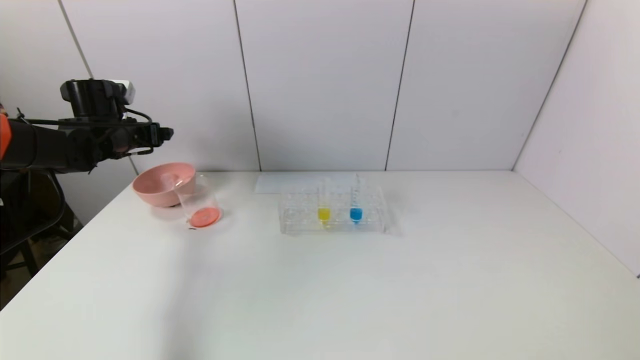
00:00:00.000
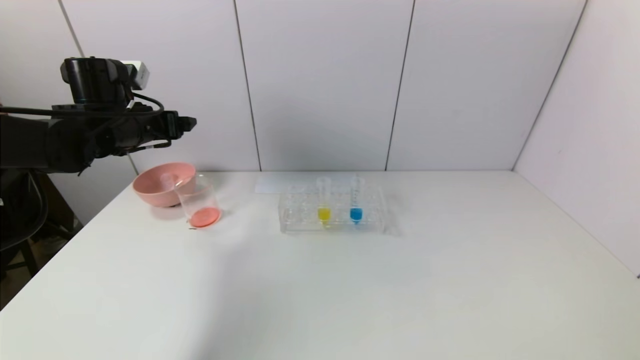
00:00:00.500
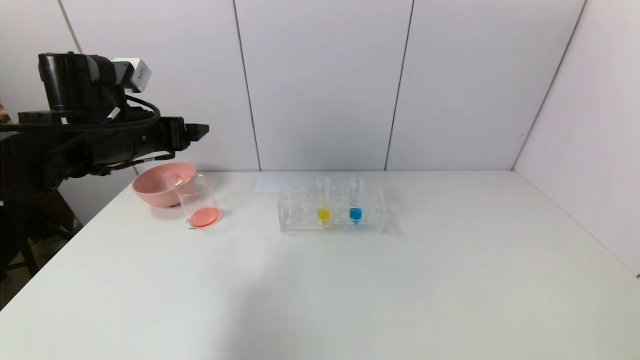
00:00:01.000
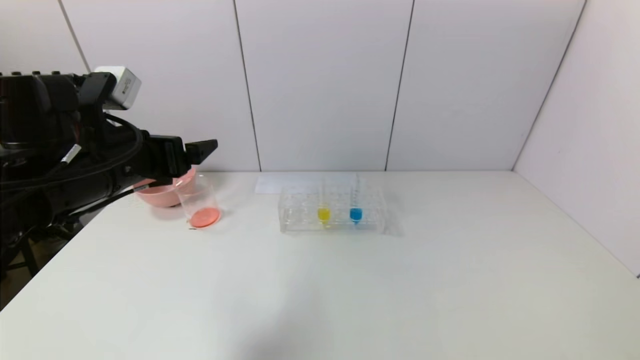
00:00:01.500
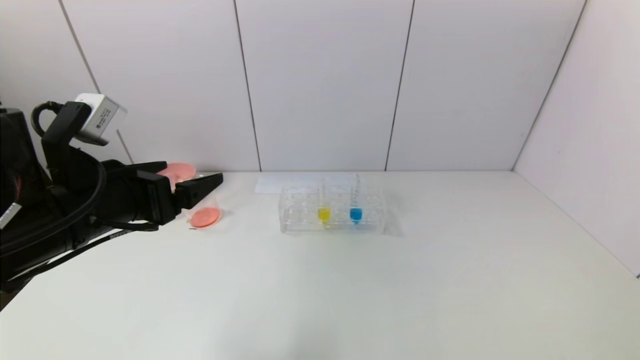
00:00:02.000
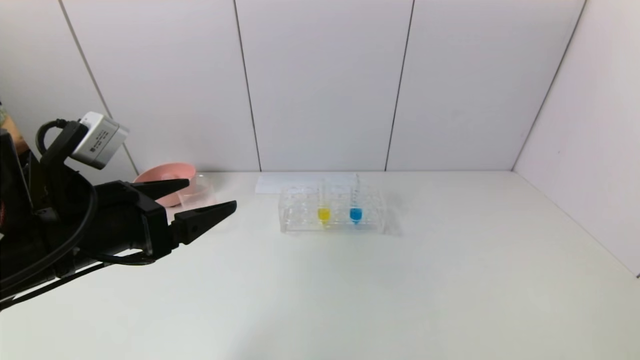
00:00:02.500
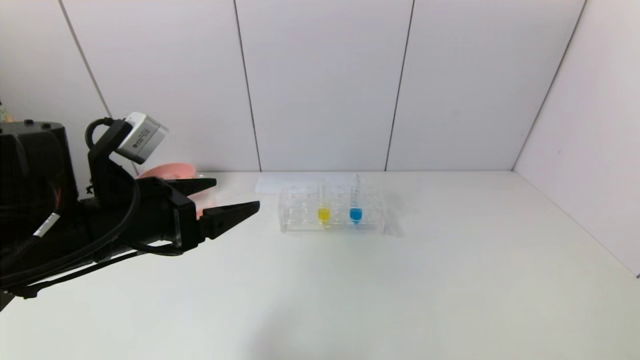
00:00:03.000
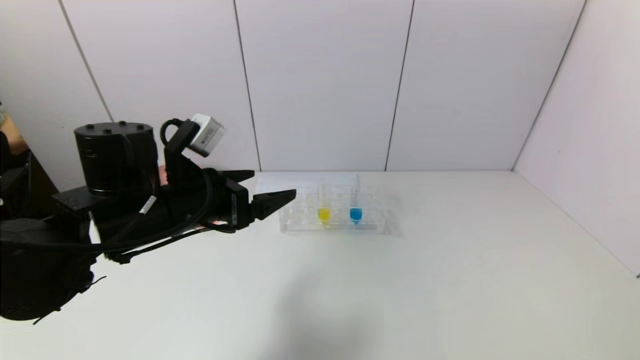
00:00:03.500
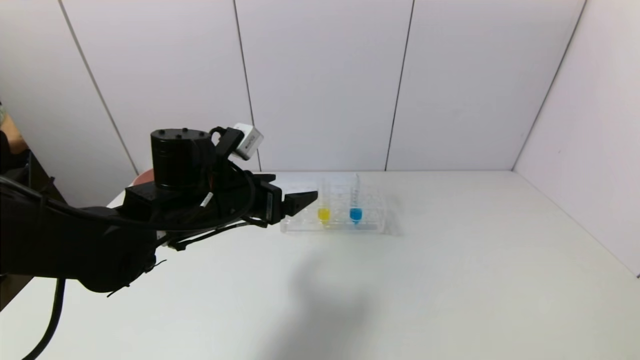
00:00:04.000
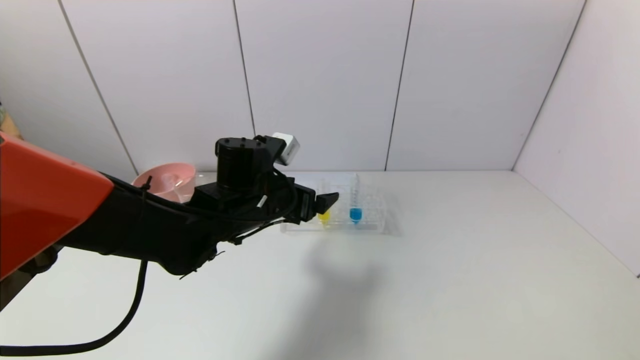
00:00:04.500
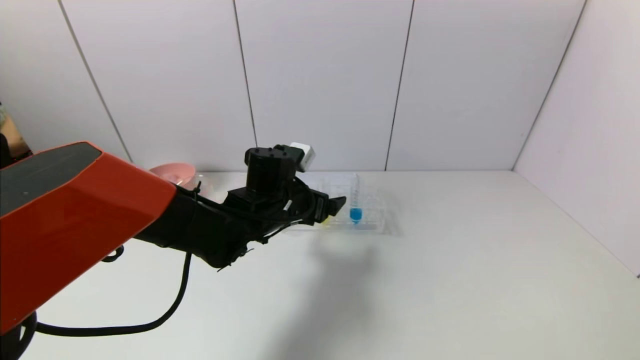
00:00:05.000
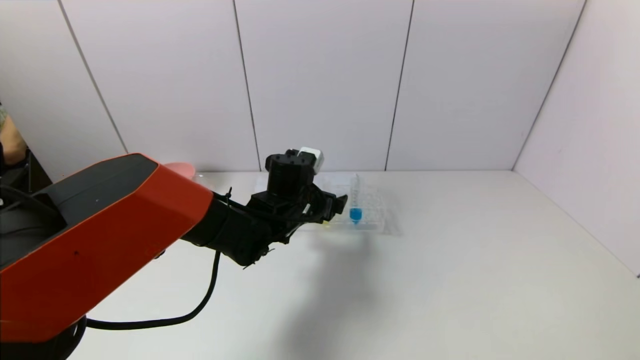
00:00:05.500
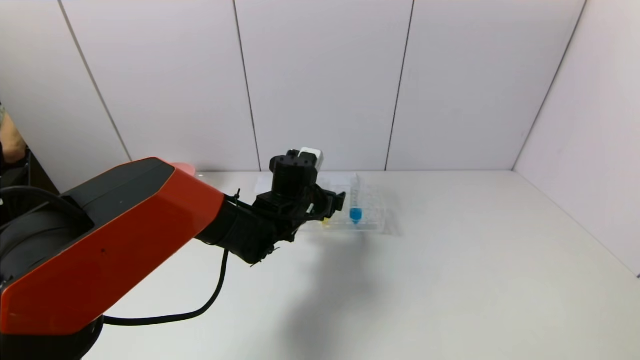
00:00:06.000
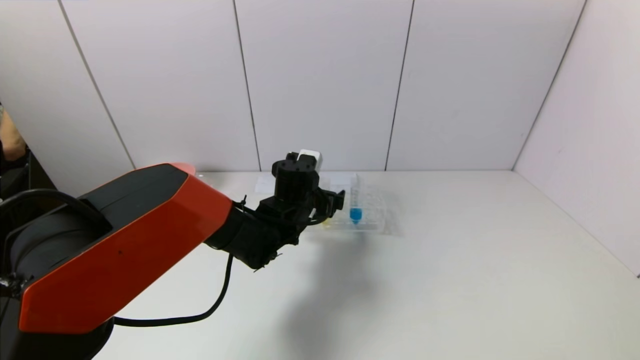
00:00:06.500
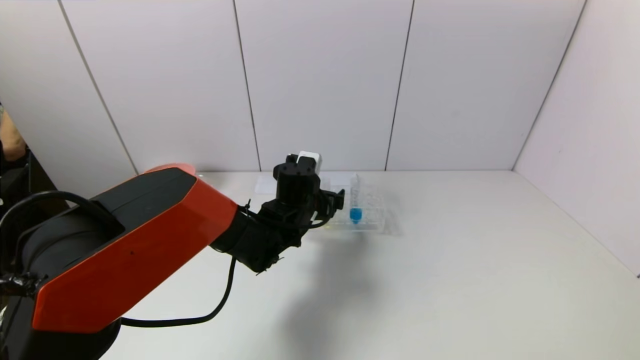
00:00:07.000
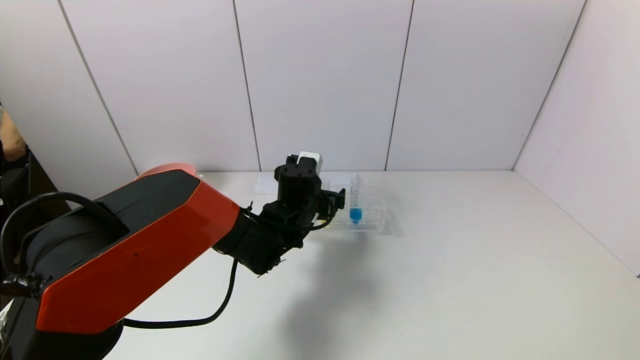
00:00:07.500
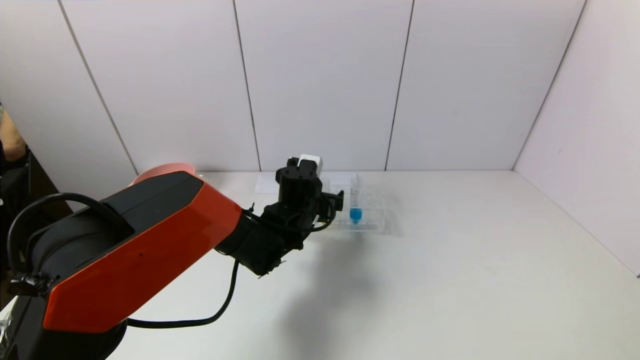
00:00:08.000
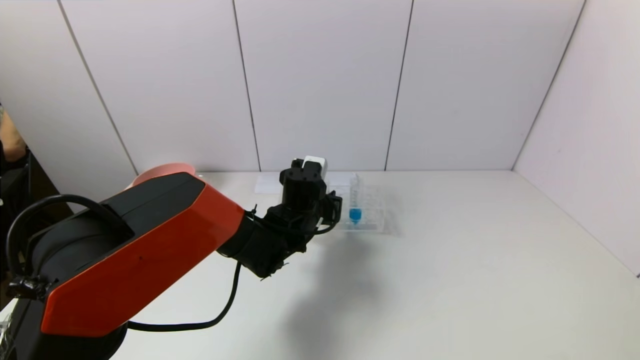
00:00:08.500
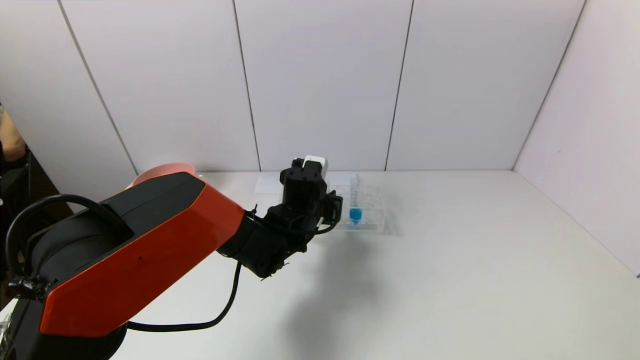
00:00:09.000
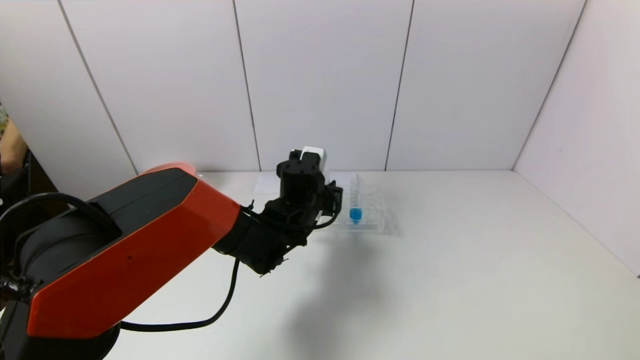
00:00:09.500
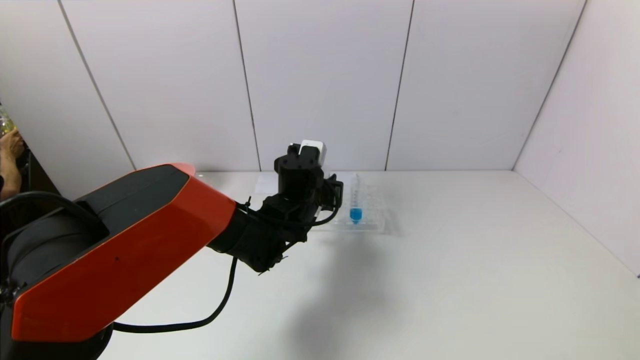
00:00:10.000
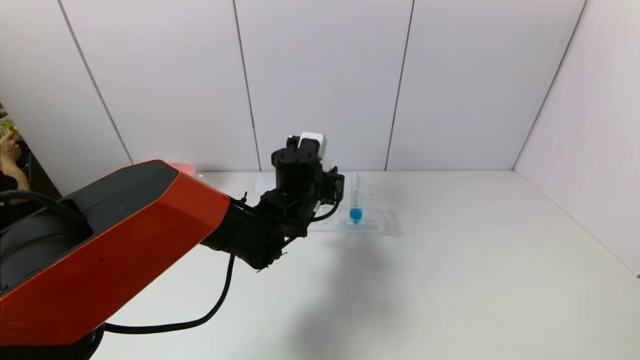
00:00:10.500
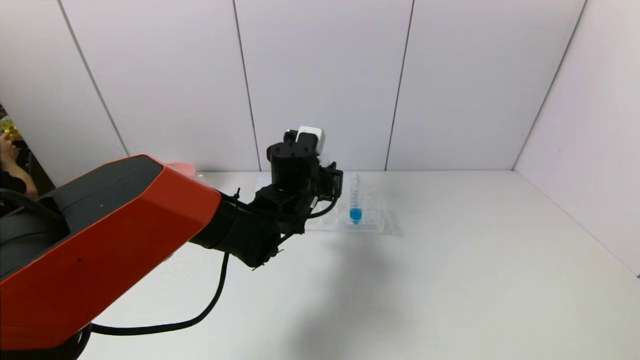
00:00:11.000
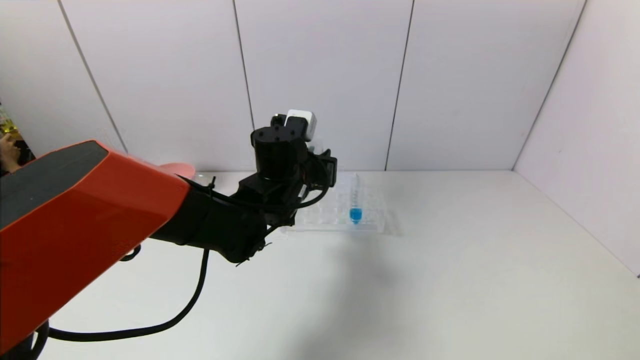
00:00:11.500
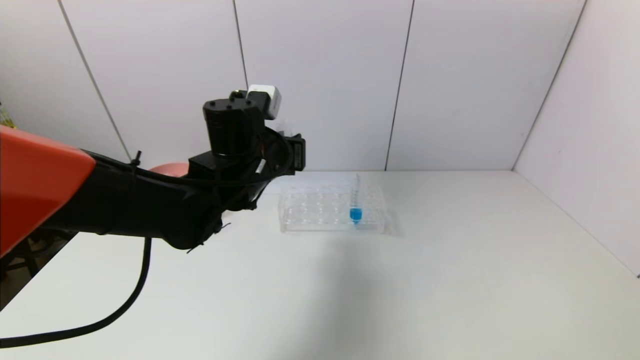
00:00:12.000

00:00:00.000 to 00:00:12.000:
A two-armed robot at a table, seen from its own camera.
Task of the whole recording: pick up the test tube with yellow pigment and the test tube with red pigment by grippers and pour them into the beaker.
Step, 00:00:00.000 to 00:00:09.000: Grasp the yellow reagent with the left gripper.
00:00:00.000 to 00:00:02.000: The left gripper moves backward and to the right, roughly 25 cm.
00:00:02.000 to 00:00:04.000: The left gripper goes approximately 15 cm forward, to the right and downward.
00:00:04.000 to 00:00:06.000: The left gripper moves to the right, forward and downward, some 15 cm.
00:00:06.000 to 00:00:08.000: The grippers stay close to where they were, moving slightly.
00:00:08.000 to 00:00:10.000: The left gripper closes its fingers.
00:00:10.000 to 00:00:12.000: The left gripper moves upward and to the left, roughly 10 cm.

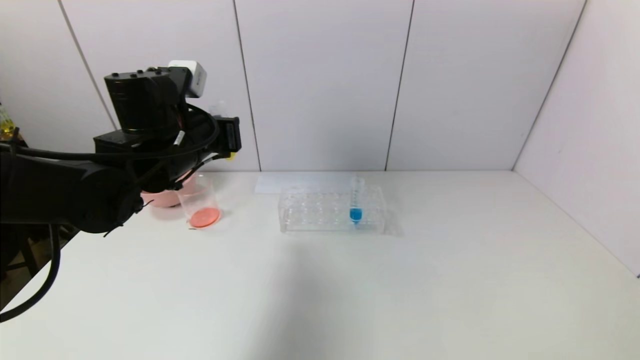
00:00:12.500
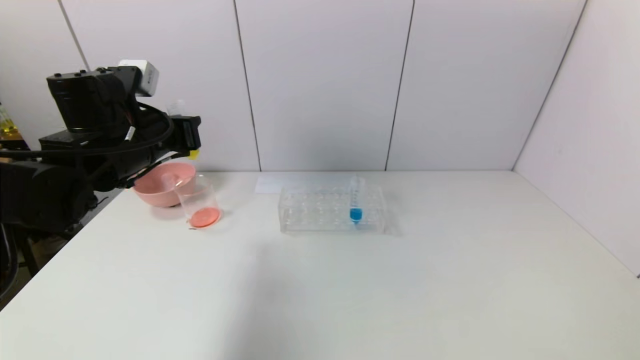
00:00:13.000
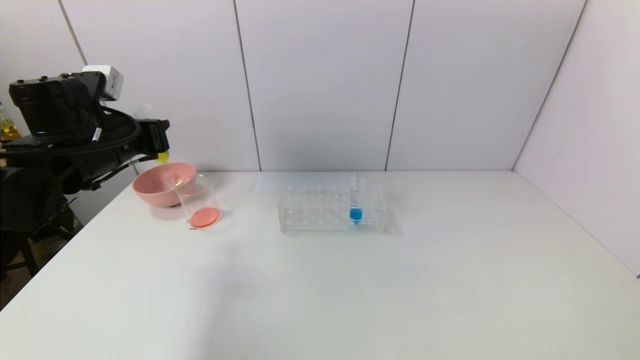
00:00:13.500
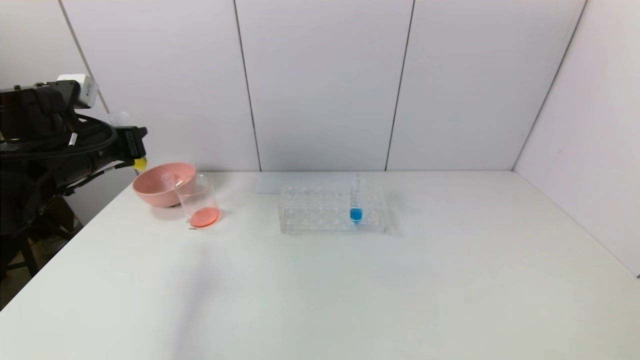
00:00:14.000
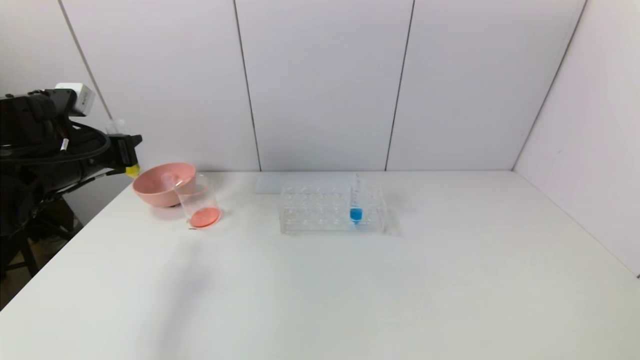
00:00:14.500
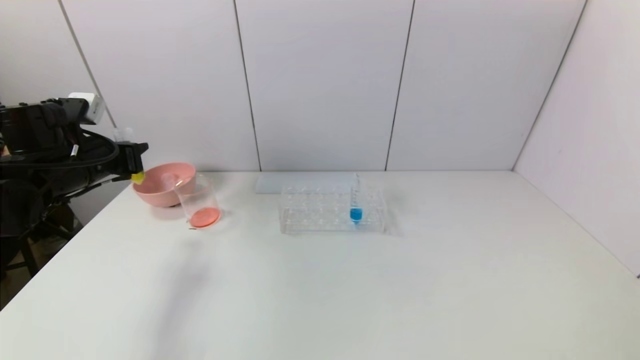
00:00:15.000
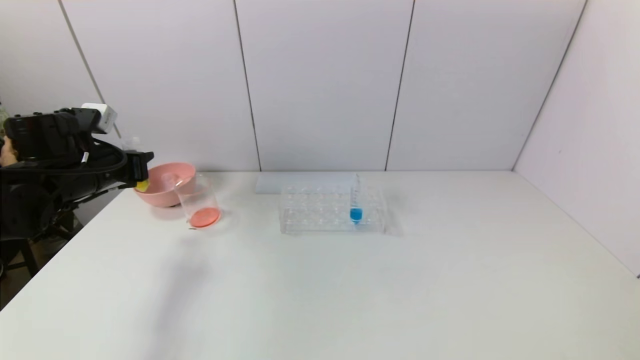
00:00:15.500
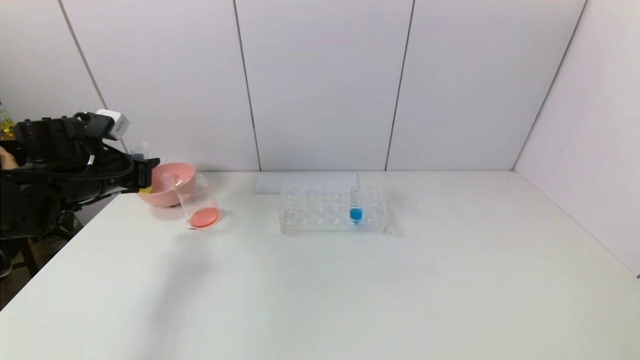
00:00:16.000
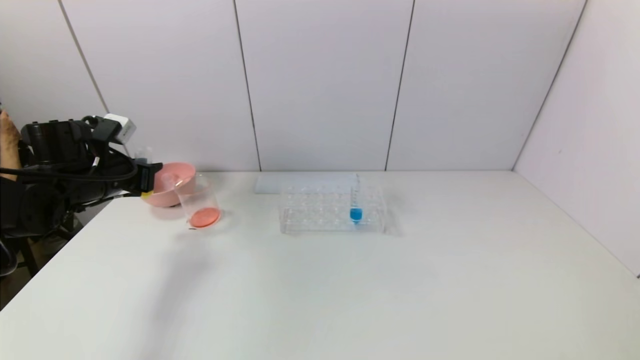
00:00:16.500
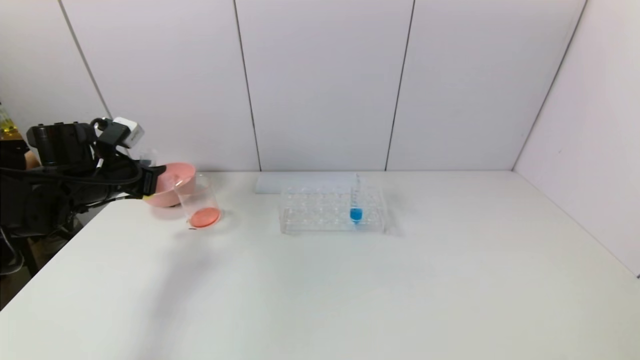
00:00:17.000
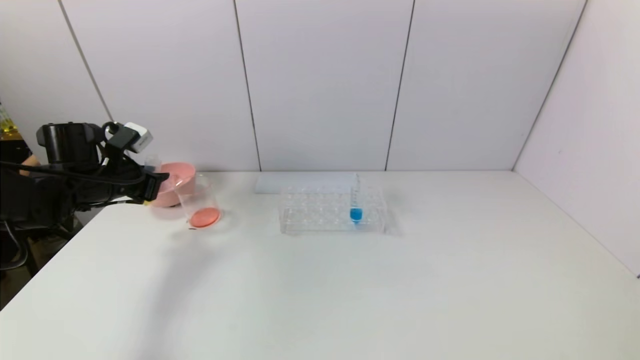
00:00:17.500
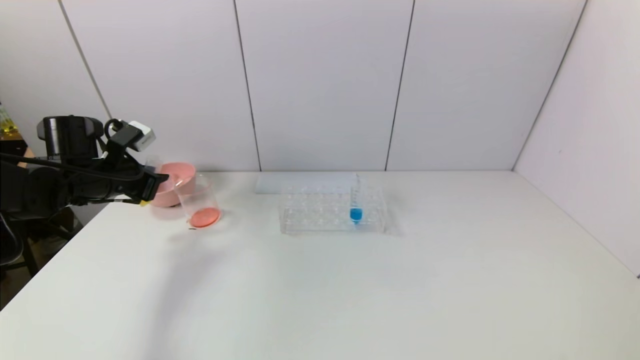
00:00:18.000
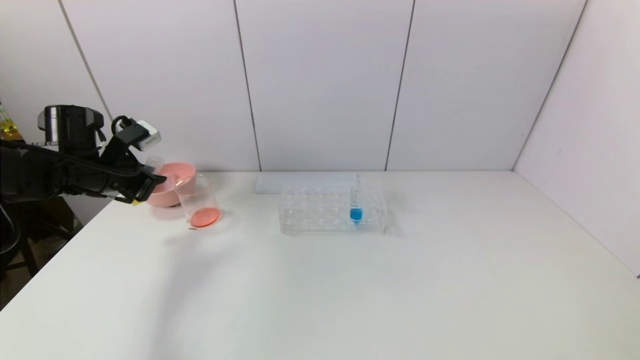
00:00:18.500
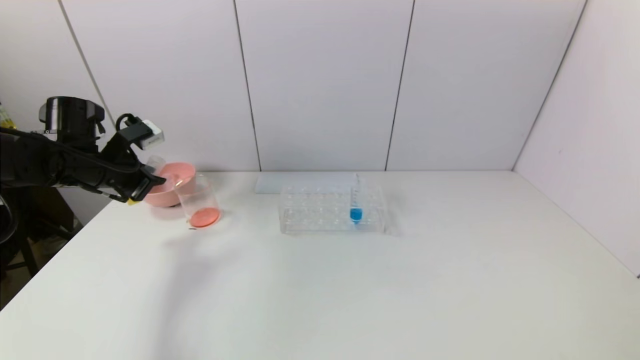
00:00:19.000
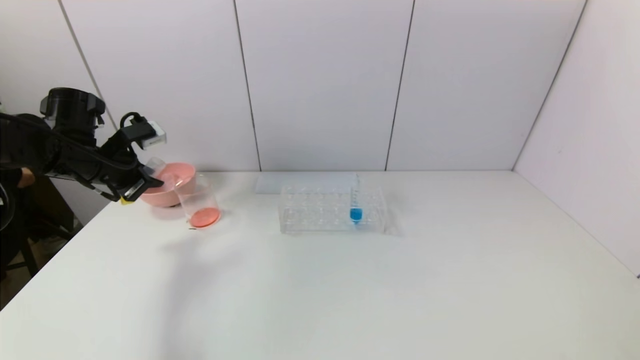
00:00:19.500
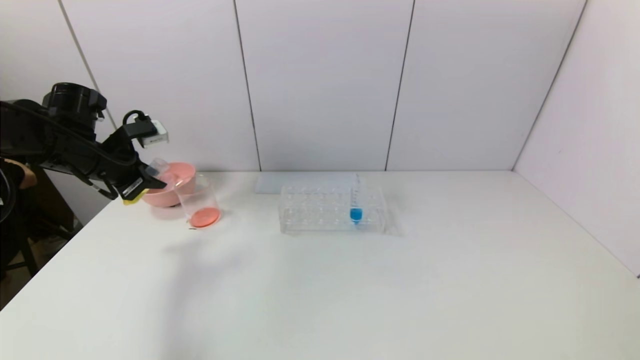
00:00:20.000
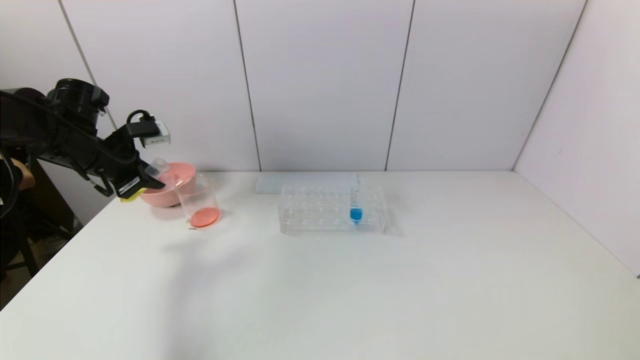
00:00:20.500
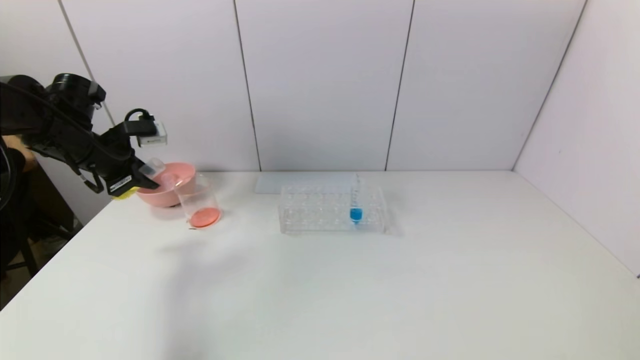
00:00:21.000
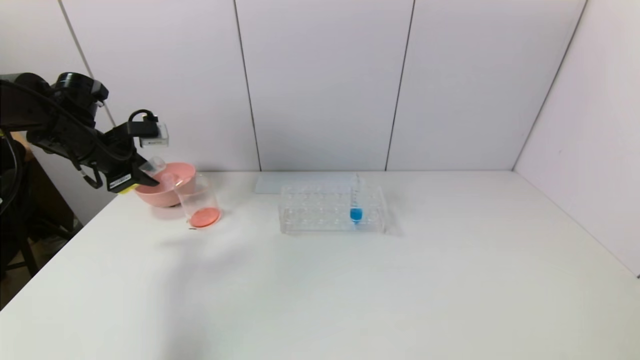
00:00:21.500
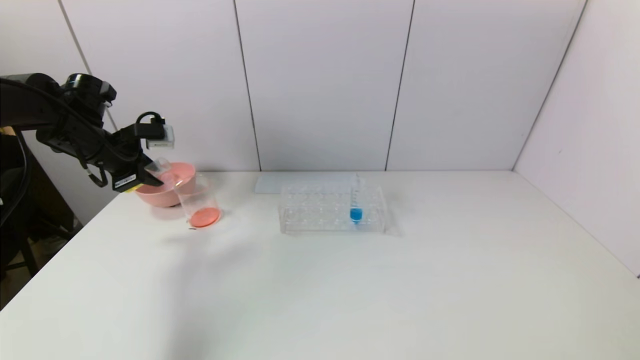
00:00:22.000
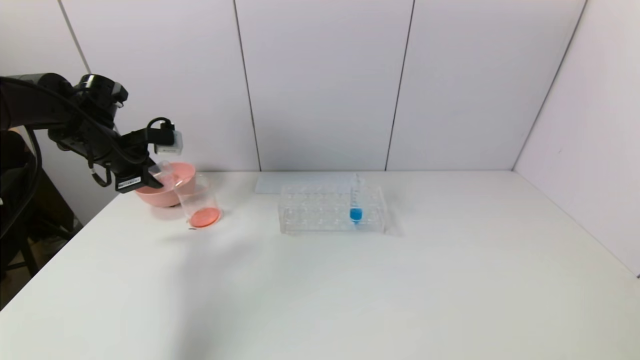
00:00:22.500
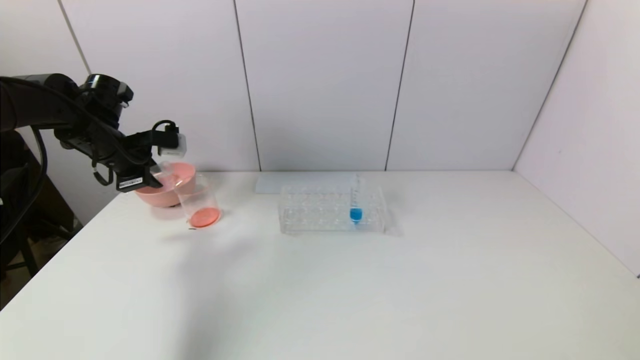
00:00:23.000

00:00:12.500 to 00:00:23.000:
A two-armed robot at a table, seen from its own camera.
Task of the whole recording: pick up the test tube with yellow pigment and the test tube with red pigment by grippers and pour them into the beaker.
00:00:12.500 to 00:00:14.500: The left gripper heads to the left, covering some 15 cm.
00:00:14.500 to 00:00:16.500: The left gripper shifts by some 5 cm.
00:00:21.000 to 00:00:23.000: There are only small adjustments of the grippers.
